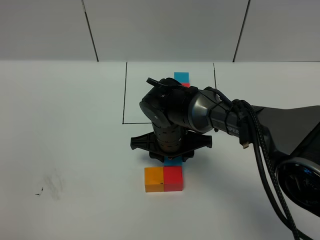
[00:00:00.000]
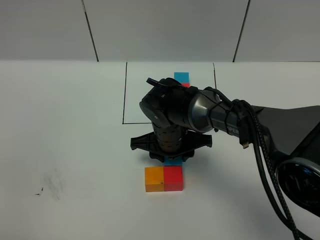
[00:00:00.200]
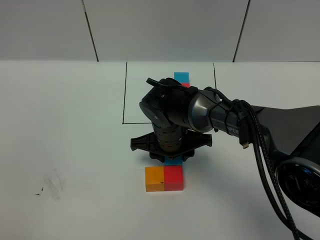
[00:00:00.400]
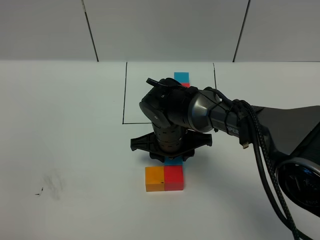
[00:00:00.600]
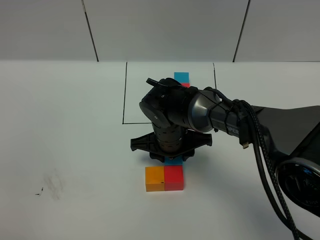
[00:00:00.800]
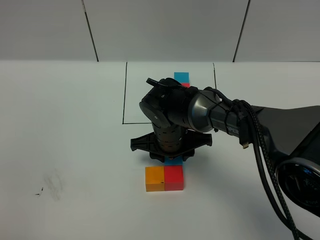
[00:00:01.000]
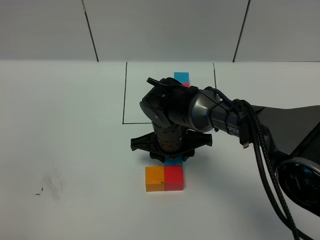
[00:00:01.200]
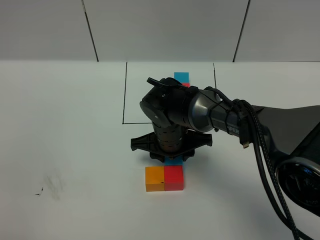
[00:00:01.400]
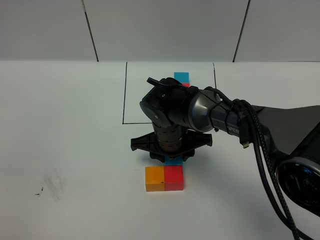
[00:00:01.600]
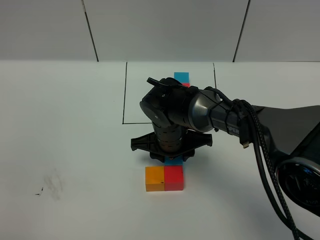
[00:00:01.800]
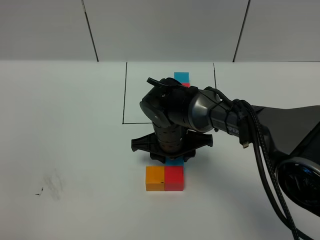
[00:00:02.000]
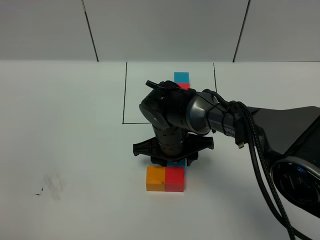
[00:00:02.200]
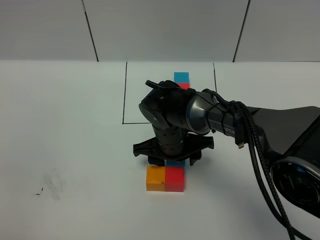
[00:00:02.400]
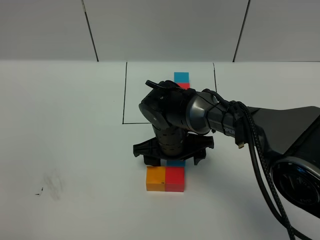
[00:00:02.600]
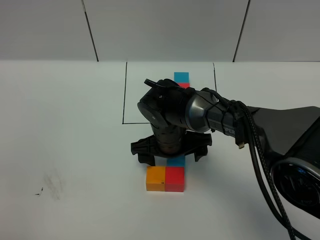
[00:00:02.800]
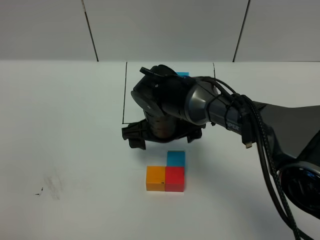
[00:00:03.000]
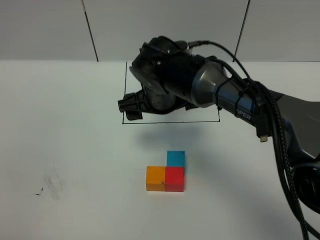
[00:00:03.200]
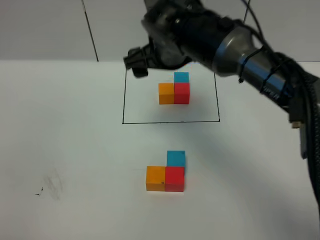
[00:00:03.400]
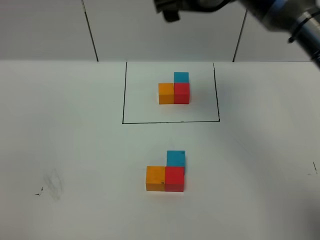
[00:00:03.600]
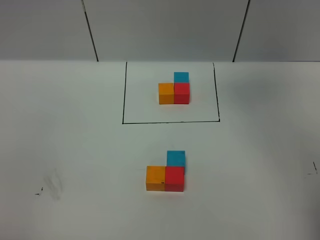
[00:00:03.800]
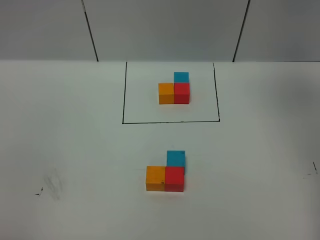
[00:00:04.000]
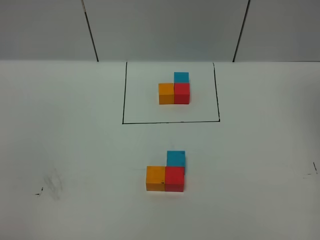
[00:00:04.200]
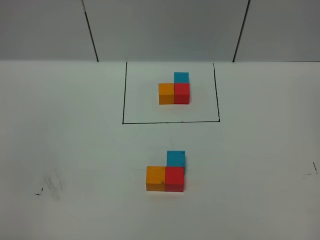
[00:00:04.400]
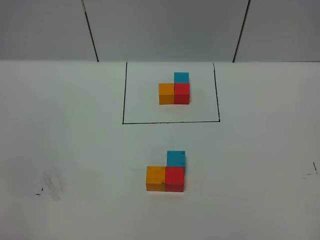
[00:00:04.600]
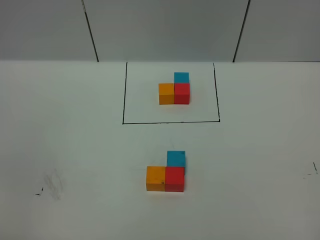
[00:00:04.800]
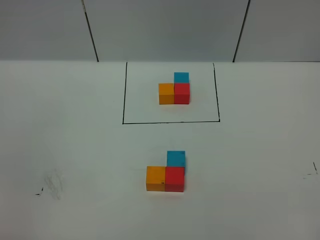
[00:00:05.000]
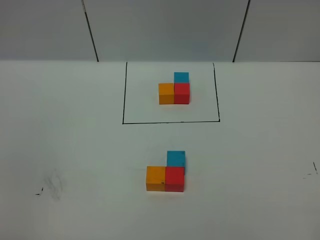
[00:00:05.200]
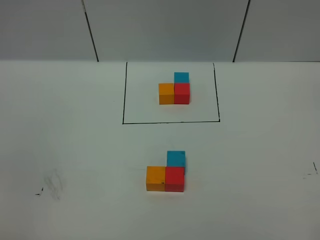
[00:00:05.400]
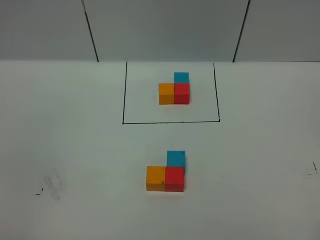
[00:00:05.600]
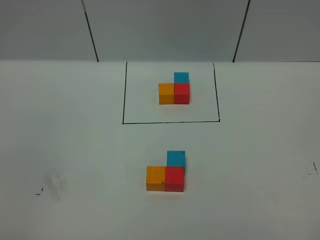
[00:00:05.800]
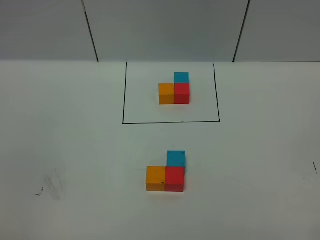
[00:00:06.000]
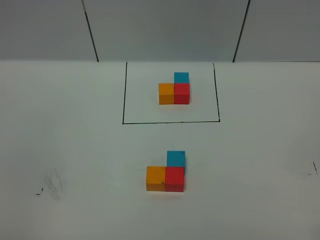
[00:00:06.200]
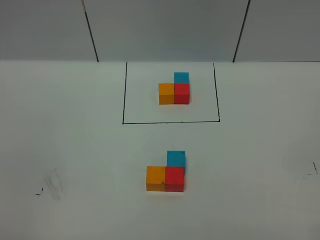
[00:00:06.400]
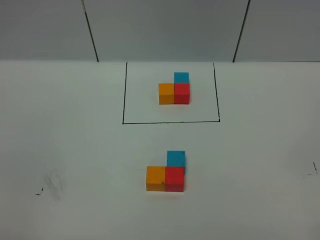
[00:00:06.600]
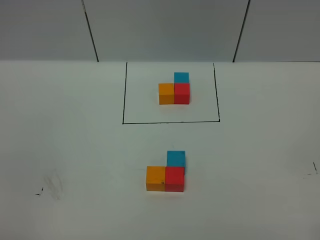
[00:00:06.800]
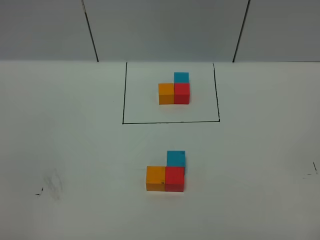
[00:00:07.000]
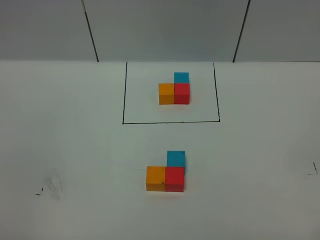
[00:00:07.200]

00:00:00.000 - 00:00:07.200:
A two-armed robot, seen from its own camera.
Task of the whole recording: According to the building block template in front, assemble the scattered blocks together.
Step, 00:00:00.000 - 00:00:02.800: Put the blue cube on the behind of the red cube.
00:00:00.000 - 00:00:01.400: Both grippers stay about where they are.
00:00:01.400 - 00:00:02.800: The right gripper opens its fingers.
00:00:02.800 - 00:00:04.400: The right gripper moves upward and to the right, roughly 60 cm.
